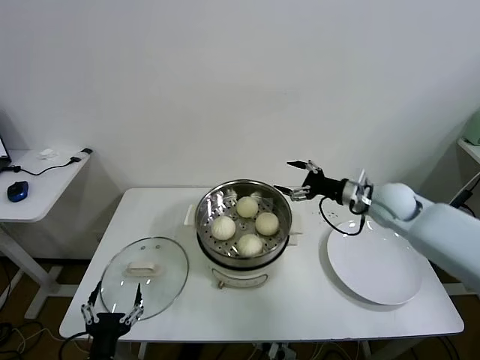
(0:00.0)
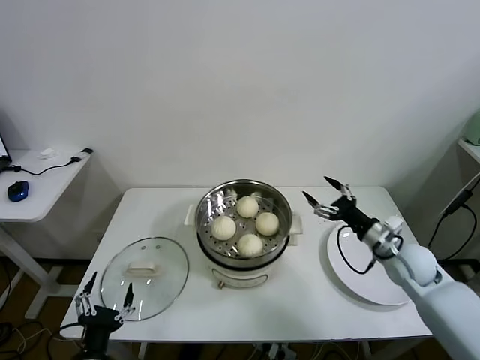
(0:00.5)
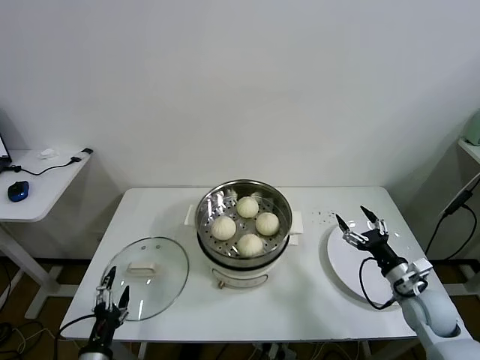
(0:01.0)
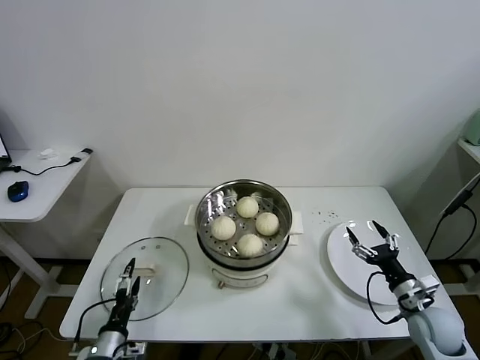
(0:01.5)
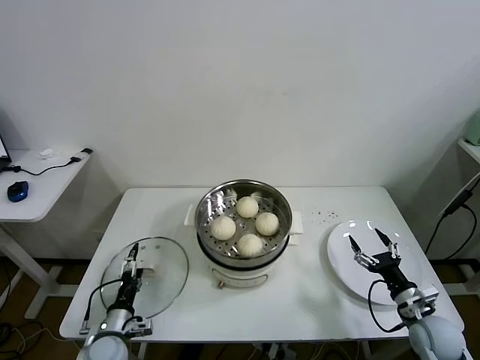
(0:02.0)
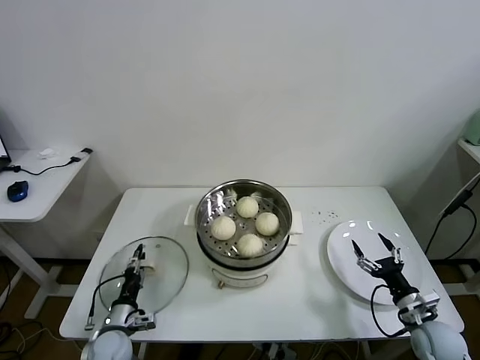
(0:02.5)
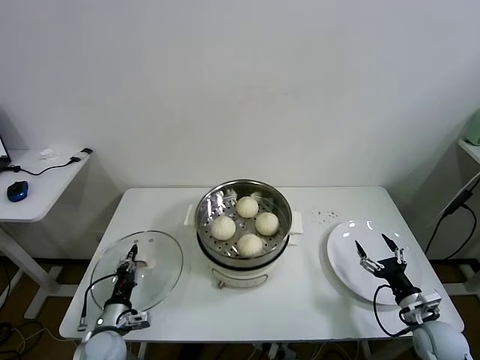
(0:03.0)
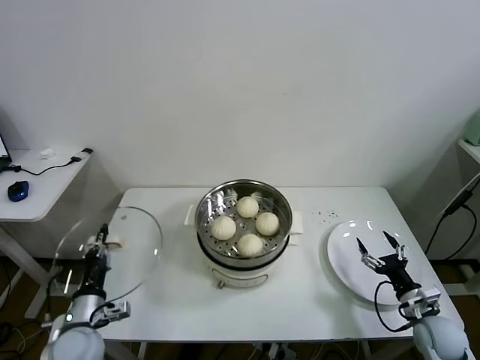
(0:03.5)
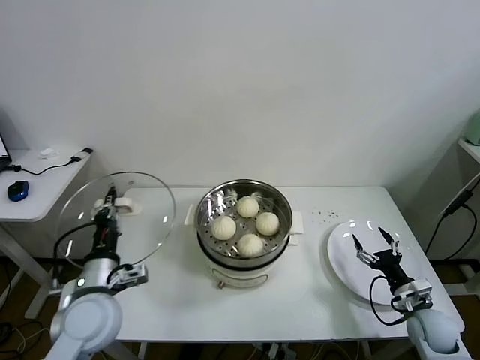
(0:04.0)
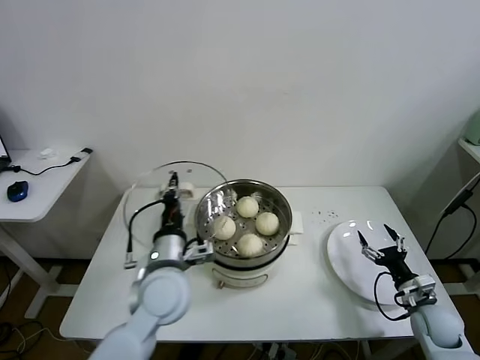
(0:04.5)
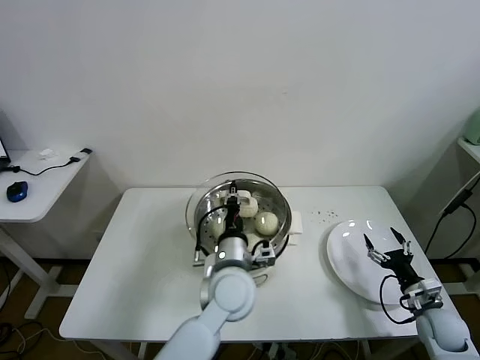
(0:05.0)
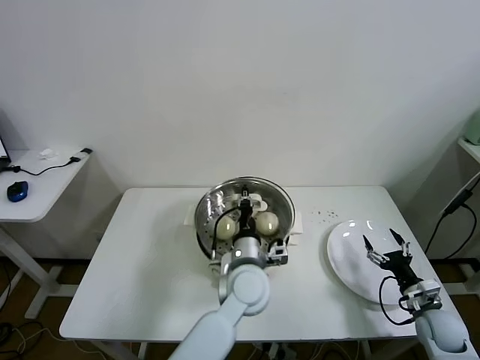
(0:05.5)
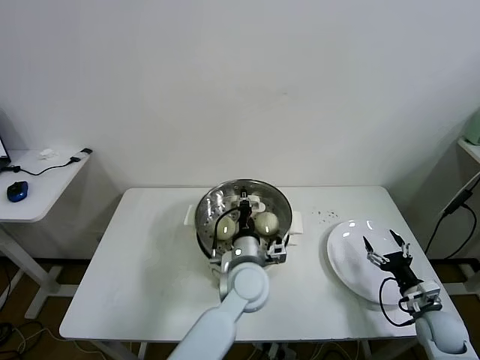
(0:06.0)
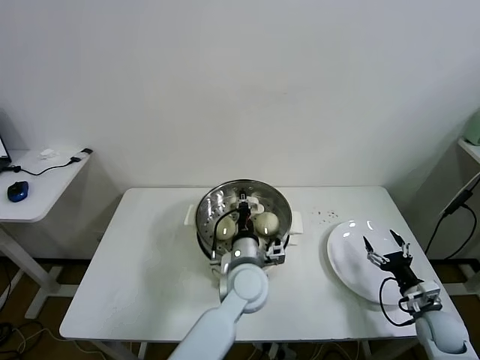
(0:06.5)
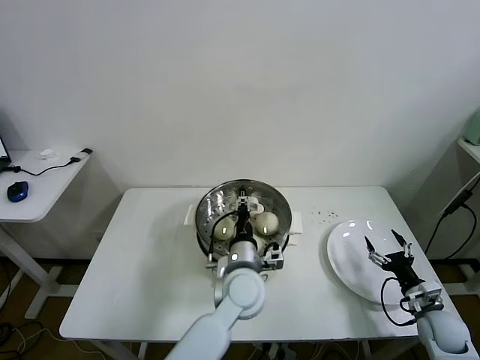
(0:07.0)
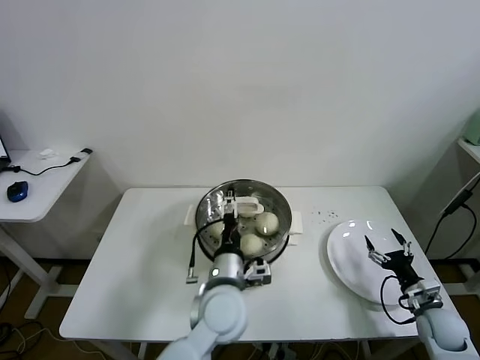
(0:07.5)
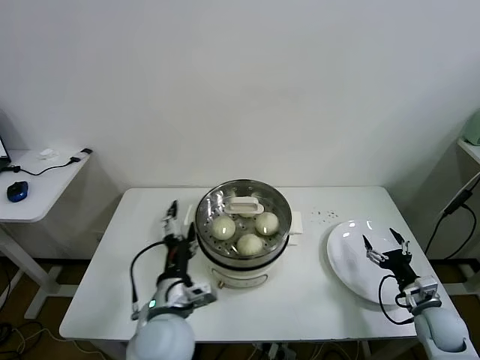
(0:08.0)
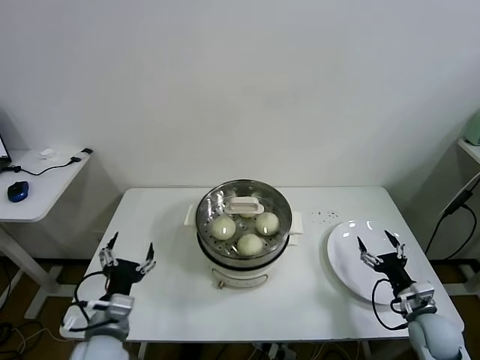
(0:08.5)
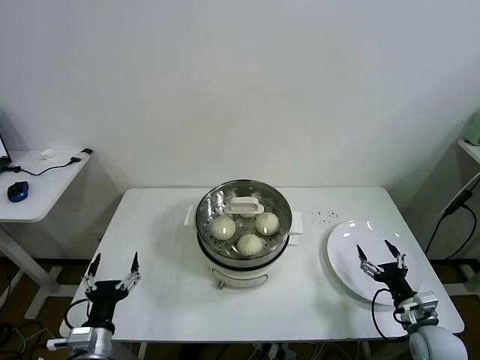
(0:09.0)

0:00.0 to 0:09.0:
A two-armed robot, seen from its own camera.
Task of the whole recording: take steamed baozi put them in steamer.
Step, 0:00.0 to 0:02.5: Grasp the pot lid with left gripper.
Step, 0:03.0 to 0:07.0: Place the pot lid on the steamer with left gripper.
0:00.0 to 0:02.0: The right gripper travels backward and downward by some 30 cm; the left gripper shifts some 20 cm forward, downward and to the left.
0:02.0 to 0:04.5: The left gripper goes some 30 cm upward and to the right, and closes.
0:04.5 to 0:07.0: The left gripper moves to the right and downward, some 15 cm, and opens its fingers.
0:07.0 to 0:09.0: The right gripper moves roughly 5 cm. Meanwhile the left gripper goes about 35 cm to the left and backward, and opens up.

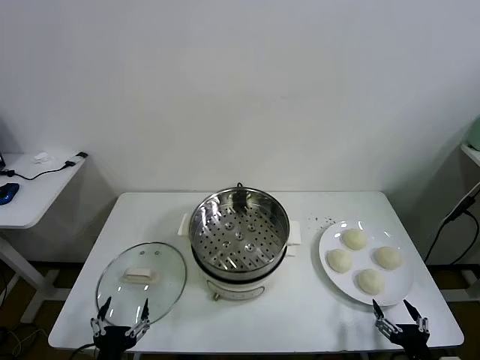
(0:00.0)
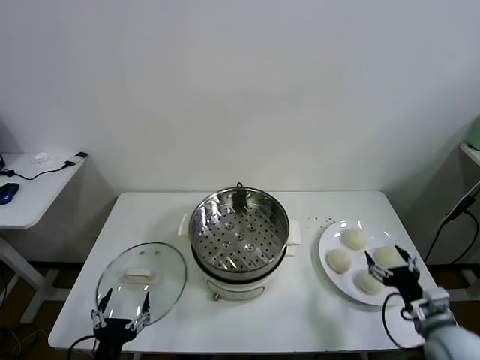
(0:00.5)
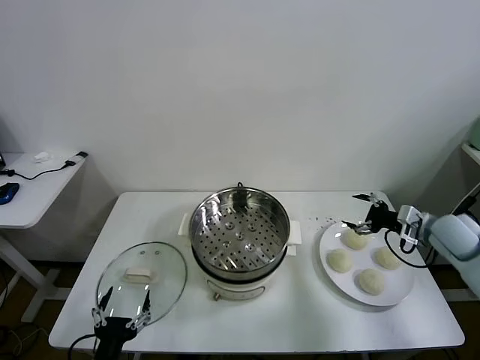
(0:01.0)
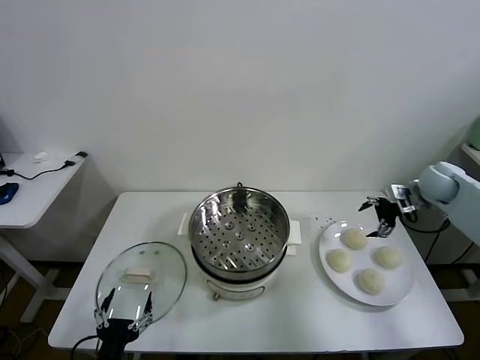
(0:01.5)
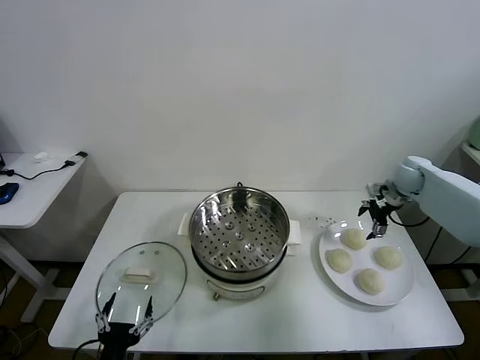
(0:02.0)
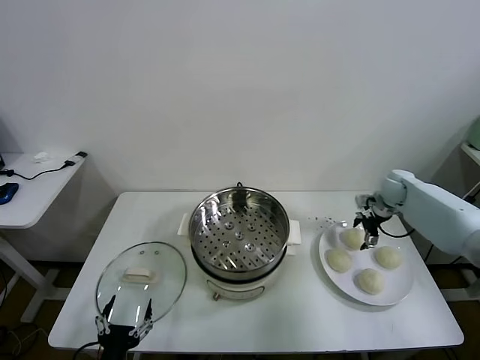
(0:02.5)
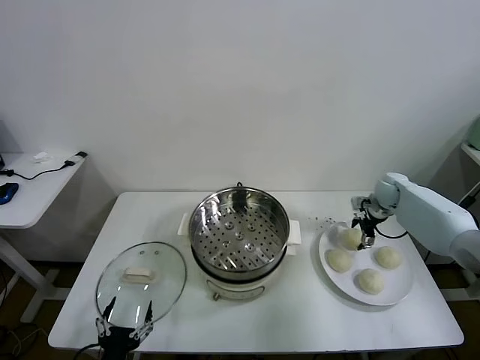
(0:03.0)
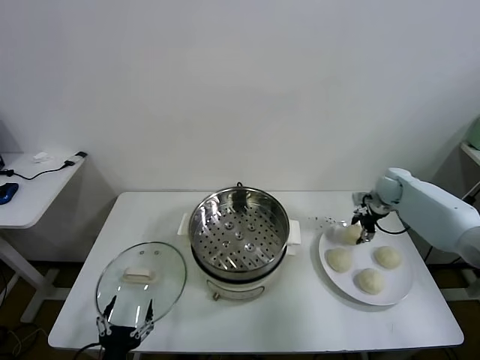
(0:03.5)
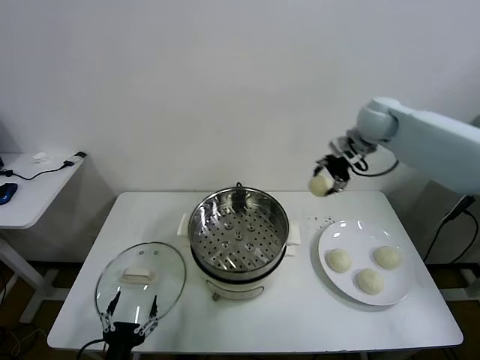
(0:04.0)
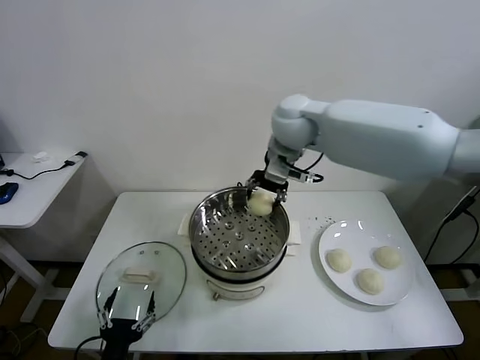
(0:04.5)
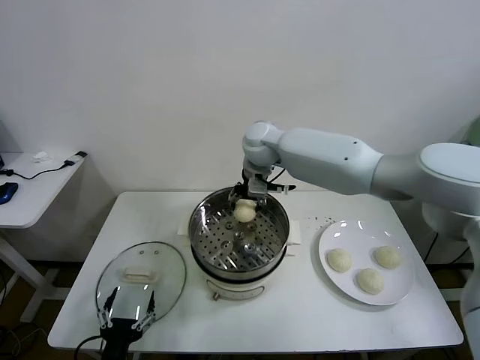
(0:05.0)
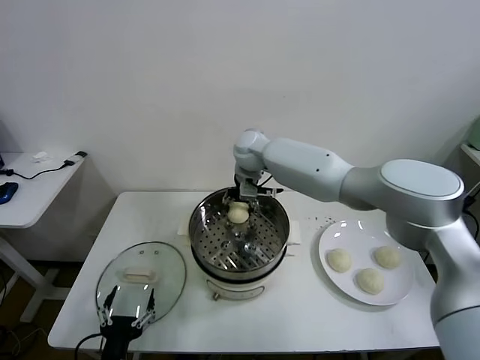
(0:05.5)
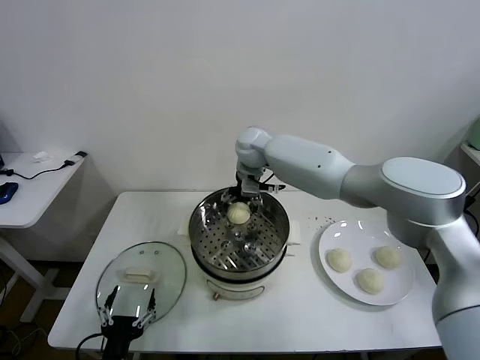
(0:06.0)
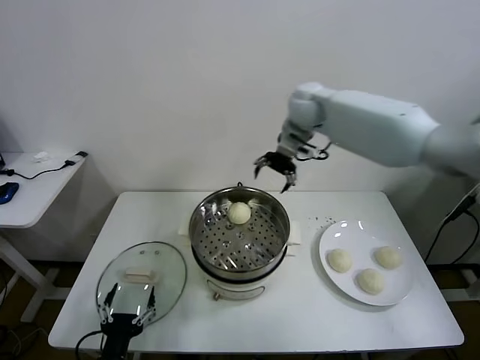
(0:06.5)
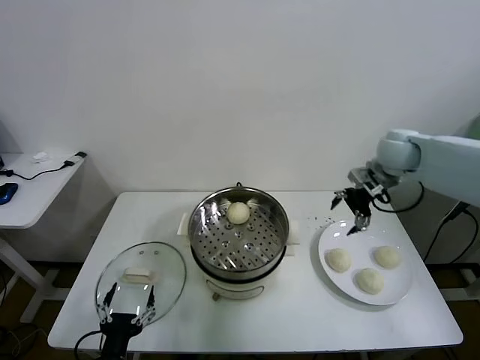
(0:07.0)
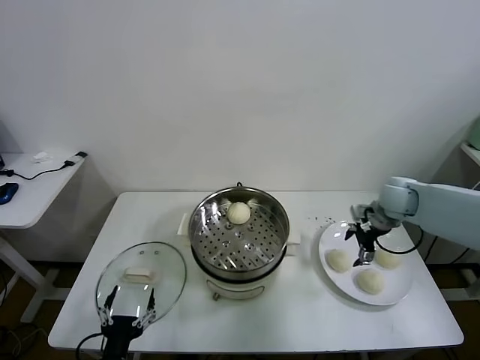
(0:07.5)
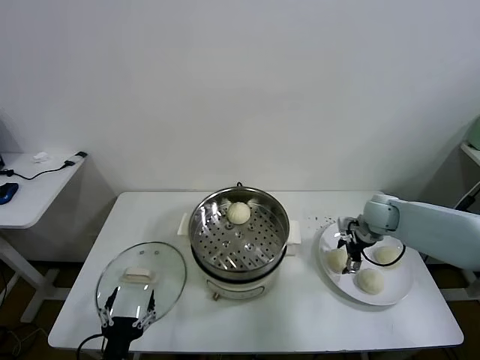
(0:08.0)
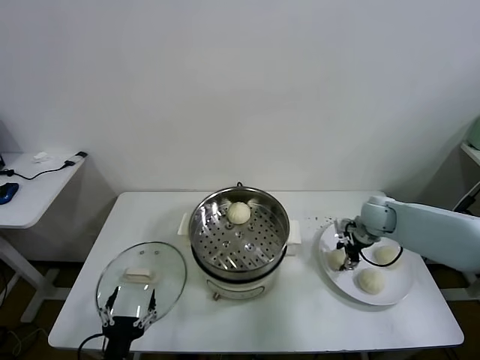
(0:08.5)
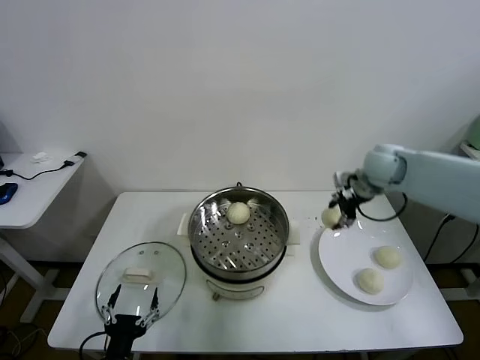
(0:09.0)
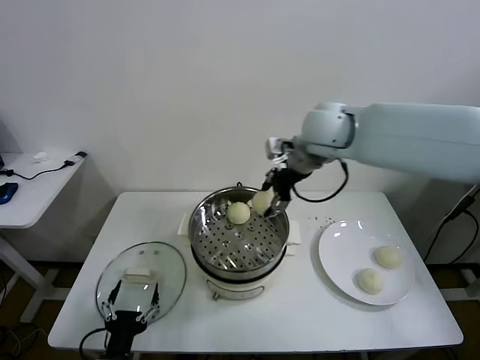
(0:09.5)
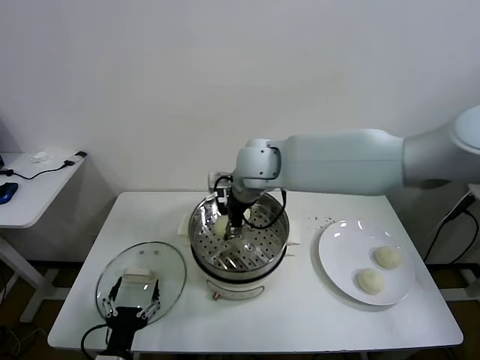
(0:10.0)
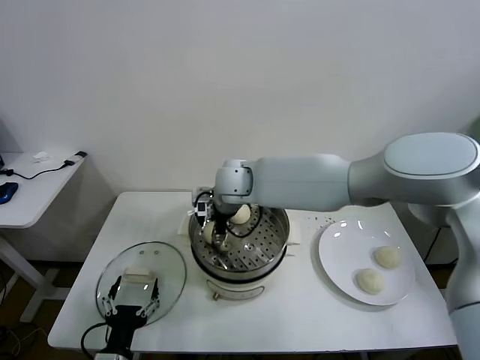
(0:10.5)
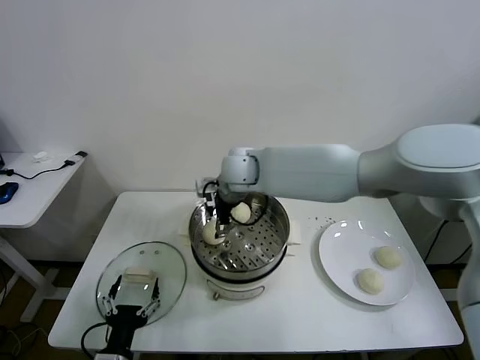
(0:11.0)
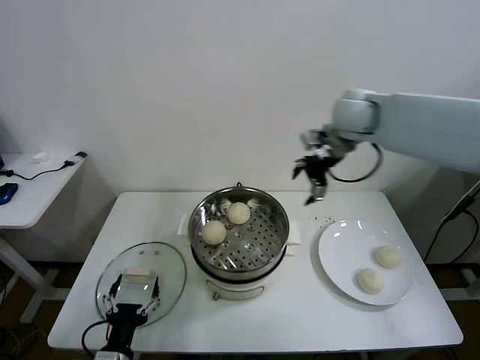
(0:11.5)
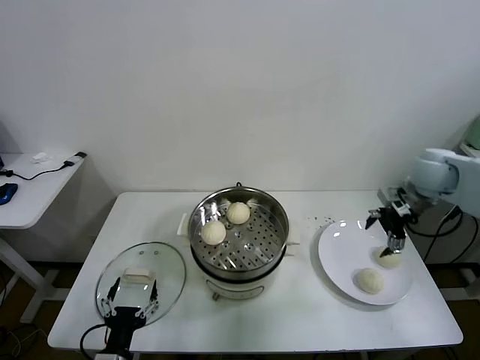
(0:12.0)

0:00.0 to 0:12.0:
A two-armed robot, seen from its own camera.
Task of the whole recording: take steamed baozi put them in steamer.
Step, 0:00.0 to 0:03.0: Grasp the baozi in the plate with right gripper.
Step, 0:03.5 to 0:06.0: Place the baozi on the steamer with right gripper.
Step, 0:06.5 to 0:08.0: Grasp the baozi in the plate with right gripper.
Step, 0:09.0 to 0:10.5: Place the baozi on the steamer with right gripper.
0:02.0 to 0:04.0: The right gripper shifts approximately 30 cm upward and to the left, and closes.
0:04.0 to 0:06.0: The right gripper heads to the left and downward, covering about 25 cm, and opens.
0:06.0 to 0:08.0: The right gripper travels to the right and downward by approximately 35 cm.
0:08.0 to 0:10.0: The right gripper goes approximately 40 cm to the left and upward, and closes.
0:10.0 to 0:12.0: The right gripper shifts about 40 cm to the right, and opens up.

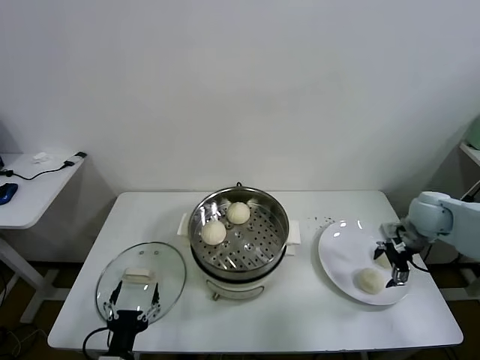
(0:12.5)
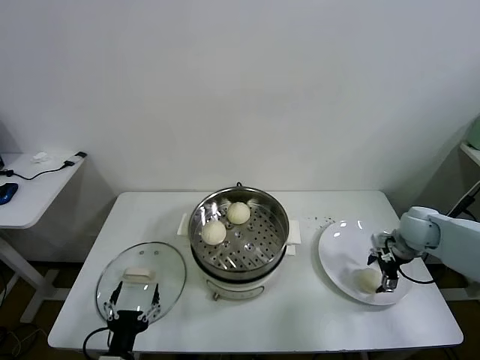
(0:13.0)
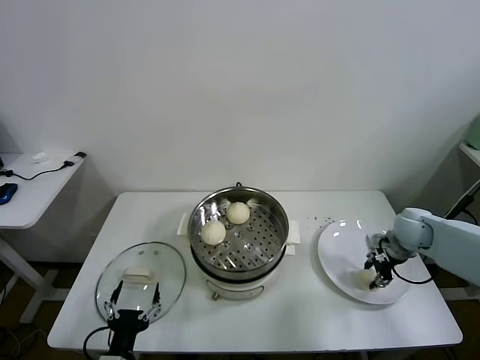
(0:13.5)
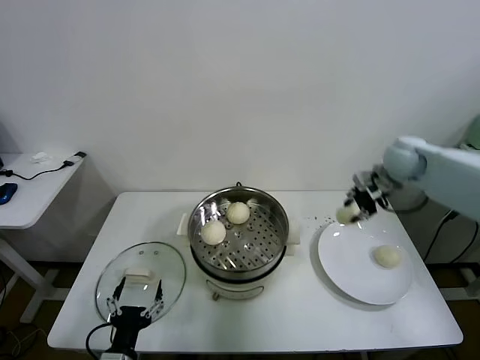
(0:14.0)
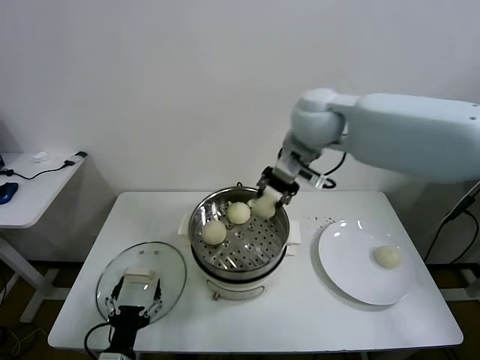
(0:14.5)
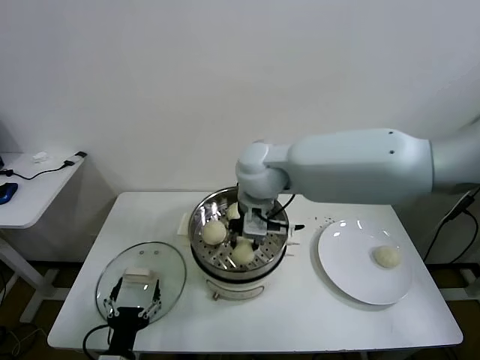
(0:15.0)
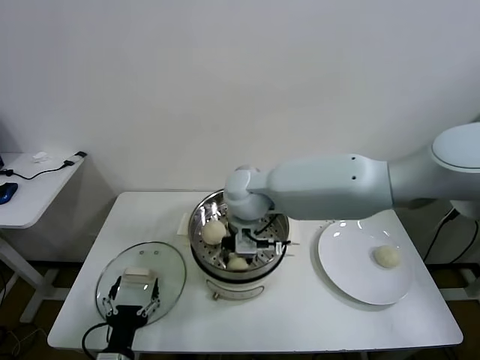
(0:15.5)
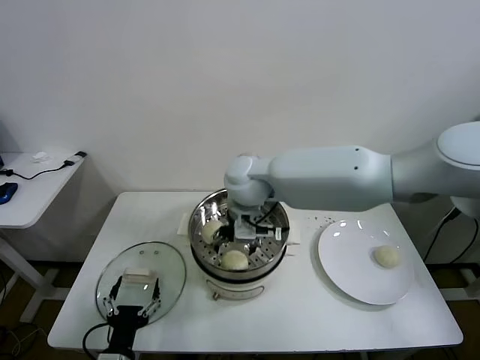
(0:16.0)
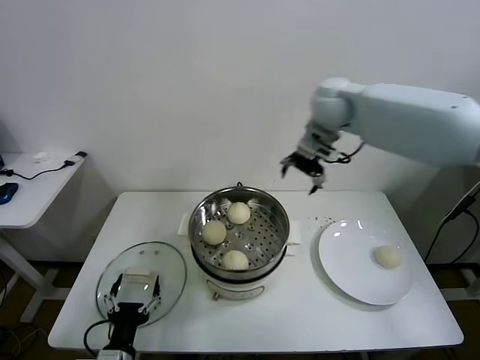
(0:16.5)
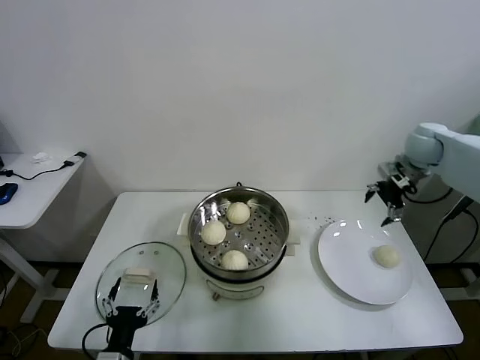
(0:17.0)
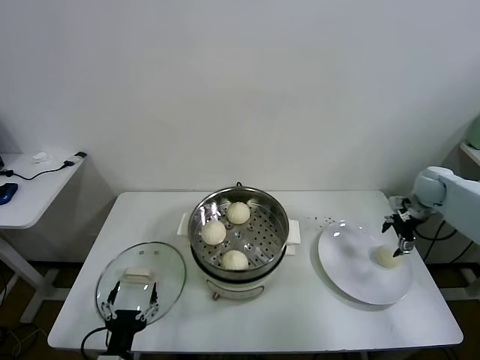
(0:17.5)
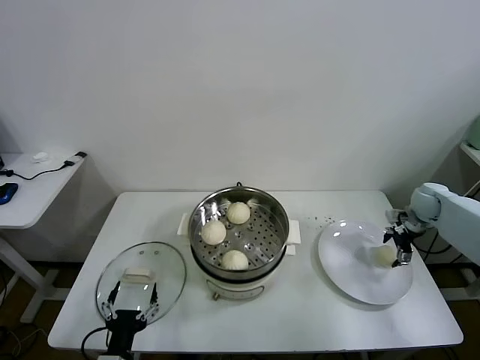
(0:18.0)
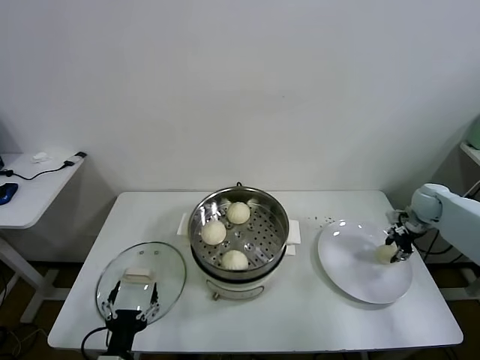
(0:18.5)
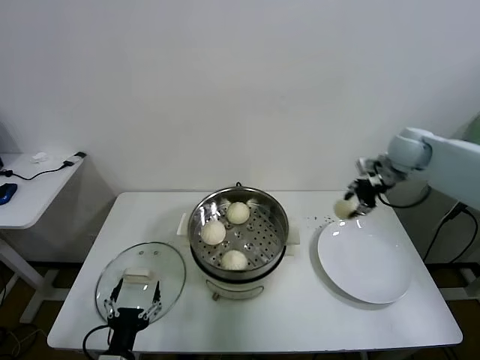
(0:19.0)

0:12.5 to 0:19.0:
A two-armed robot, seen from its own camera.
Task of the whole recording: take steamed baozi put them in steamer.
Step, 0:14.0 to 0:16.0: Place the baozi on the steamer with right gripper.
Step, 0:16.5 to 0:18.5: Grasp the baozi in the plate with right gripper.
0:12.5 to 0:14.5: The right gripper heads to the left and upward, covering roughly 40 cm, and closes its fingers.
0:14.5 to 0:17.0: The right gripper shifts roughly 30 cm to the right, and opens its fingers.
0:17.0 to 0:19.0: The right gripper heads to the left, covering some 5 cm, travels downward and back again, about 15 cm each way, and closes.
